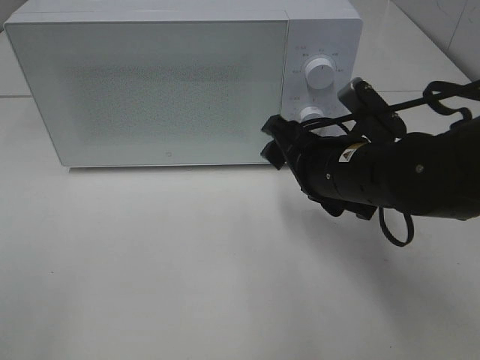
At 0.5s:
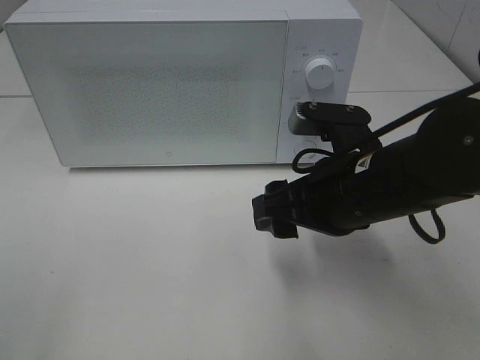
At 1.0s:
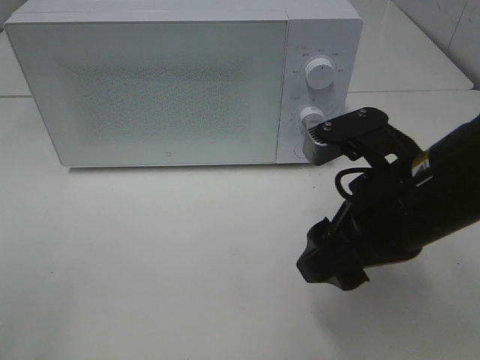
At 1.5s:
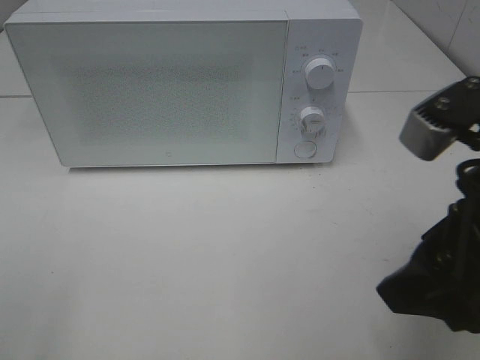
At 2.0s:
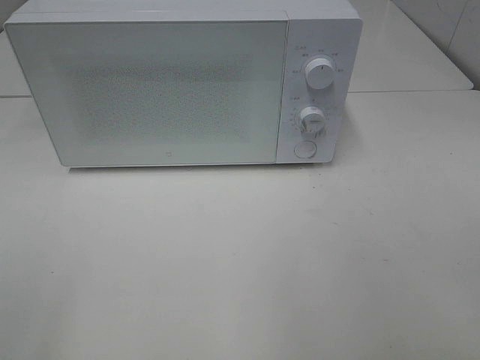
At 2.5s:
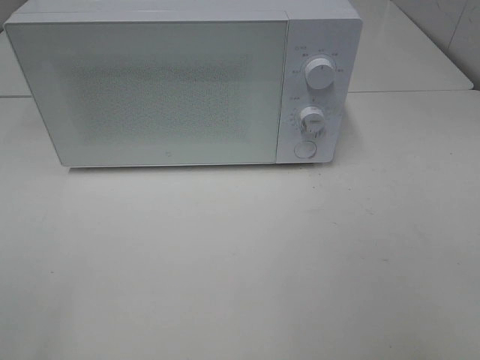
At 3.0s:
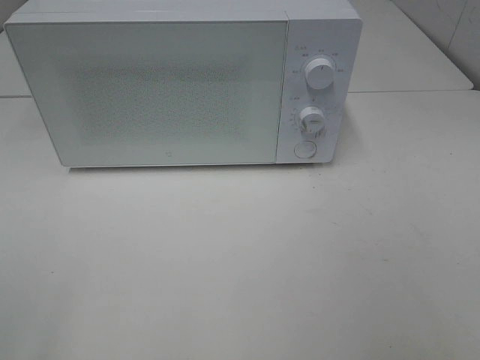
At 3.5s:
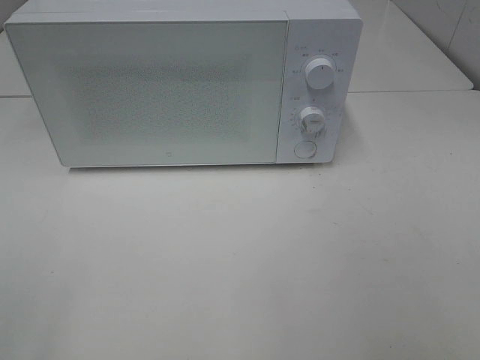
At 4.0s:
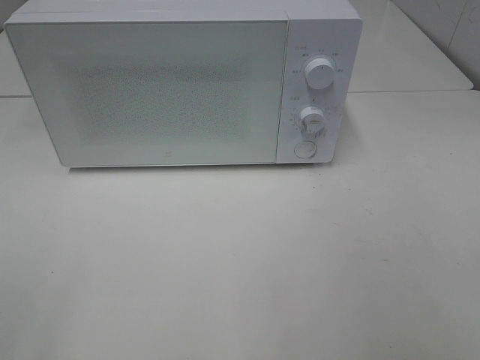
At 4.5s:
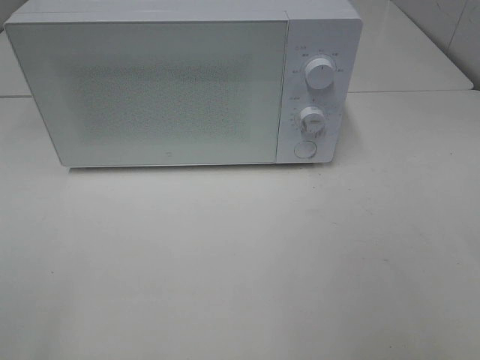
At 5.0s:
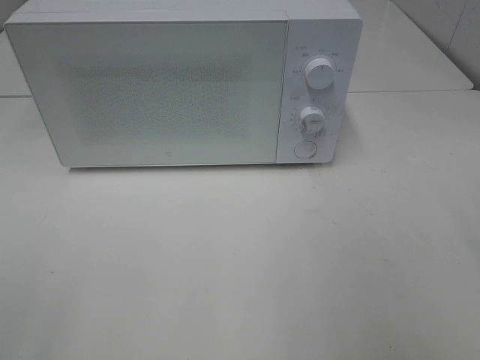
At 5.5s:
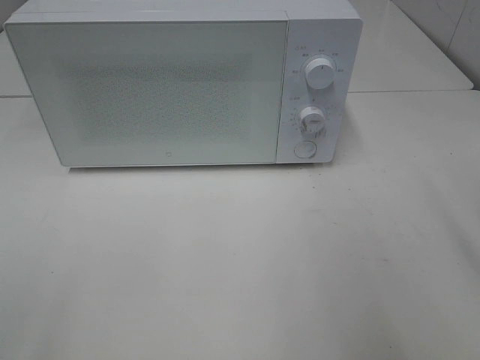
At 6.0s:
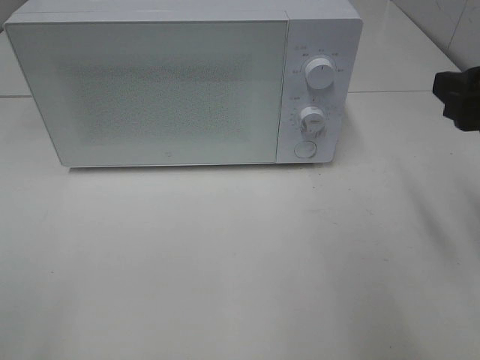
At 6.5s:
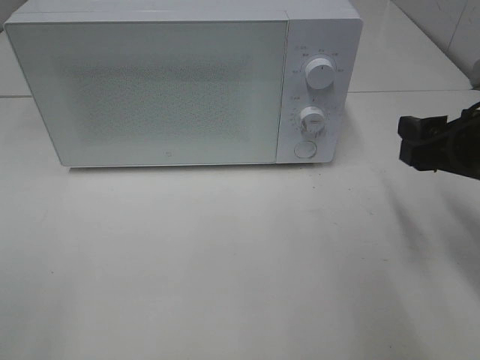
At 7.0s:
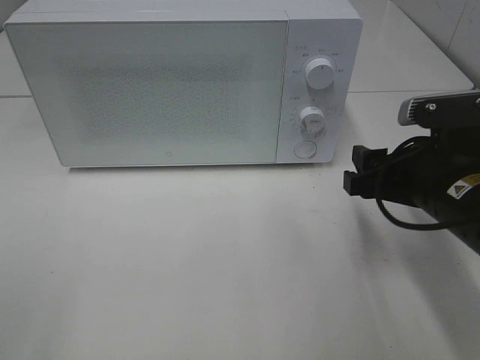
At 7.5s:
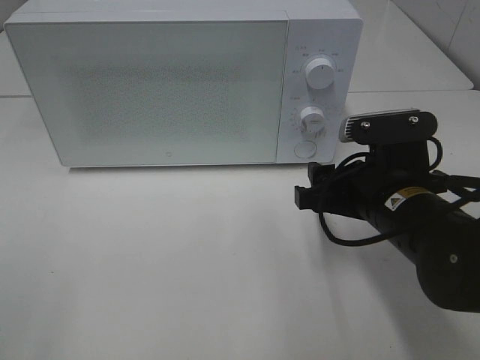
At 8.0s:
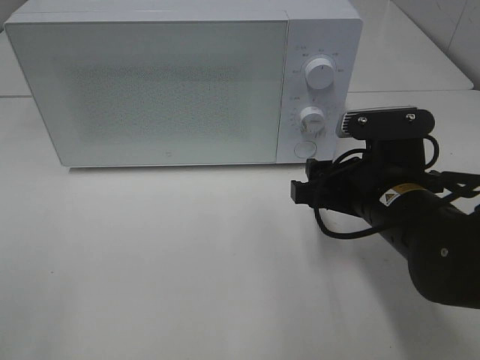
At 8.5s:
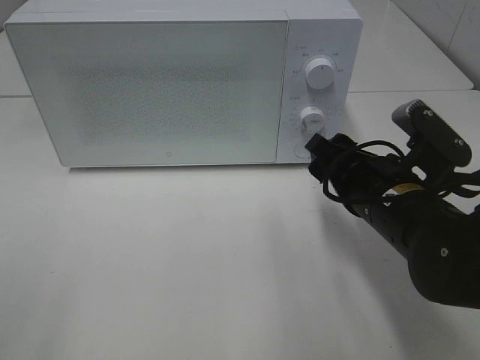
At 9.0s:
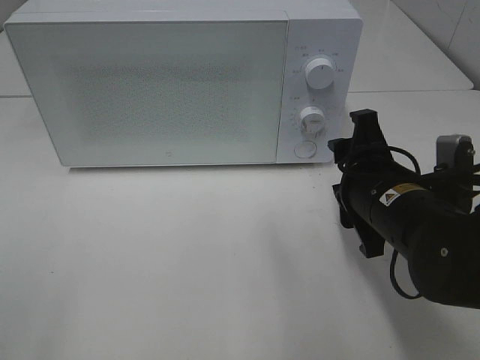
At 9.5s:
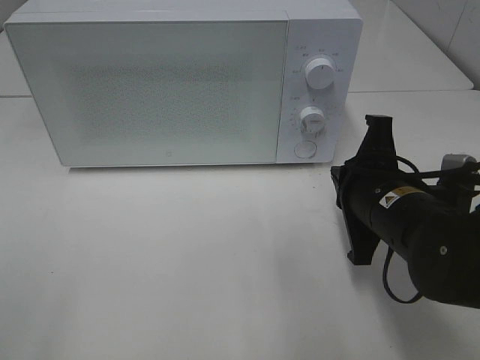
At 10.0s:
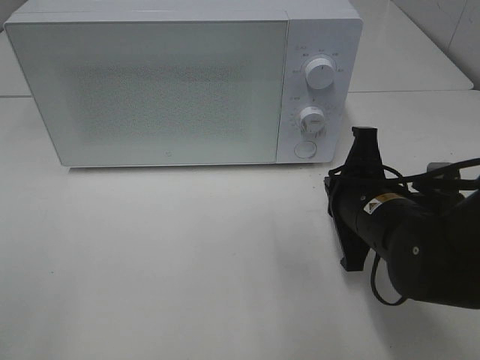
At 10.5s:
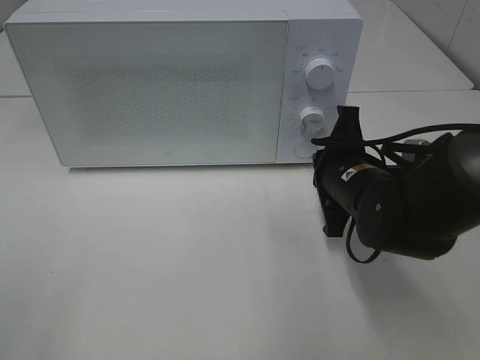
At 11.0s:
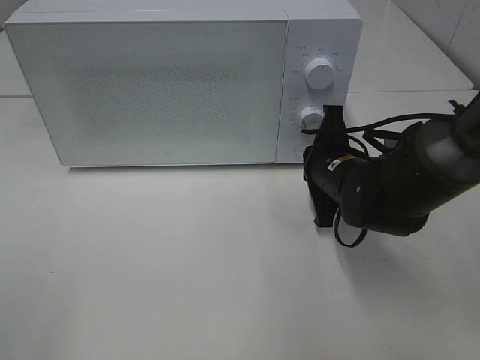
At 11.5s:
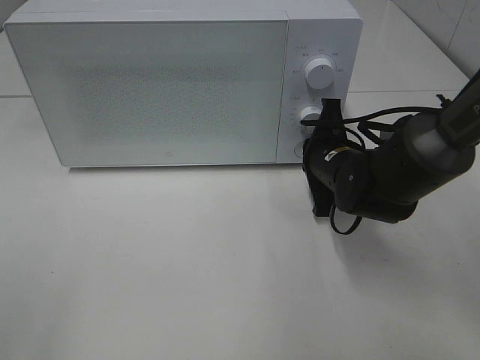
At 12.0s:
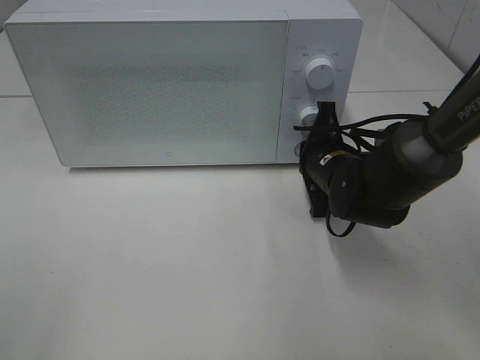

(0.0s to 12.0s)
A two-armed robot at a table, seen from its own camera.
Task of the whole recording: Heat Sandwich.
0.0s - 2.0s: The right gripper goes about 30 cm backward, upward and to the right.
4.0s - 6.0s: The right gripper moves forward, about 20 cm.
6.0s - 8.0s: The right gripper heads downward and to the left, covering some 15 cm.
8.0s - 10.0s: The right gripper closes.
10.0s - 12.0s: The right gripper goes about 10 cm forward.

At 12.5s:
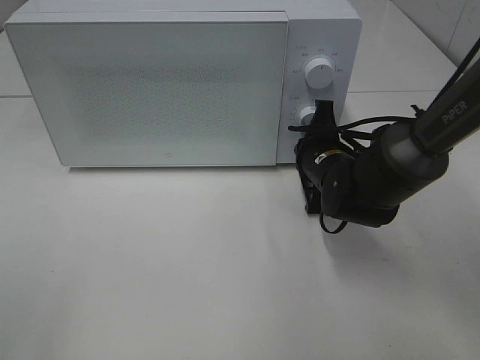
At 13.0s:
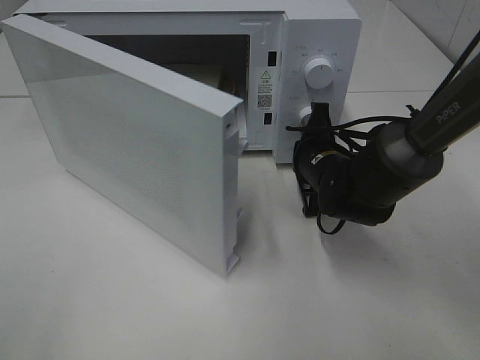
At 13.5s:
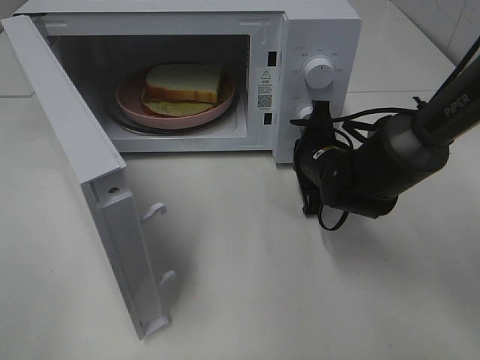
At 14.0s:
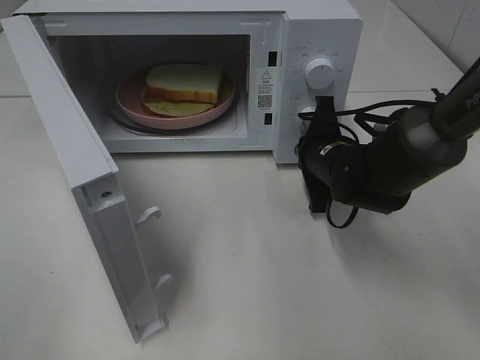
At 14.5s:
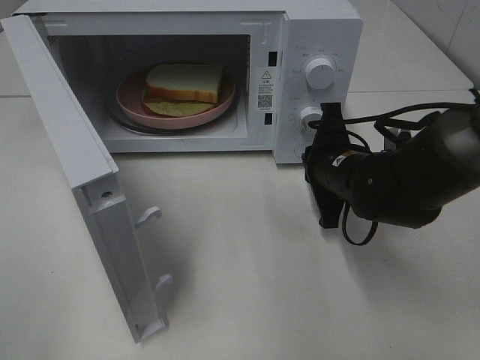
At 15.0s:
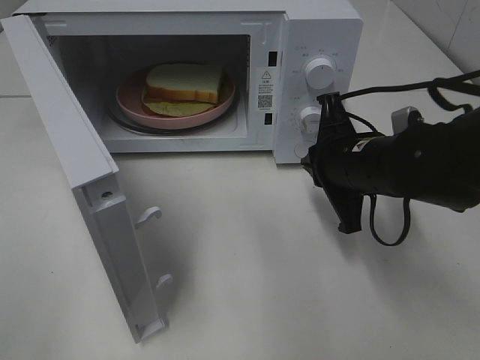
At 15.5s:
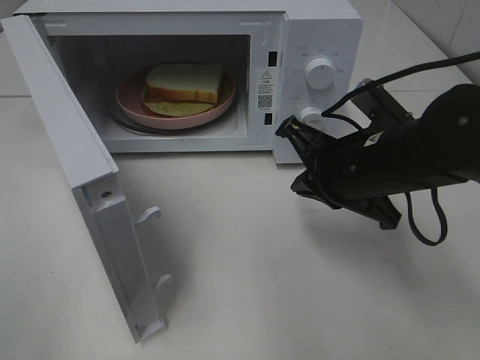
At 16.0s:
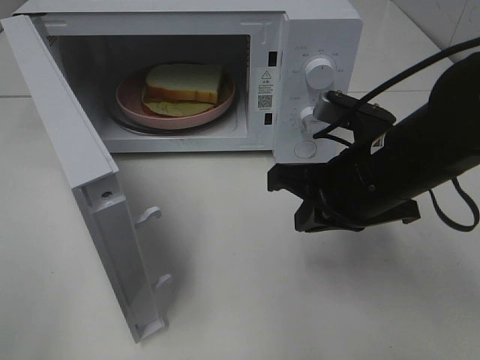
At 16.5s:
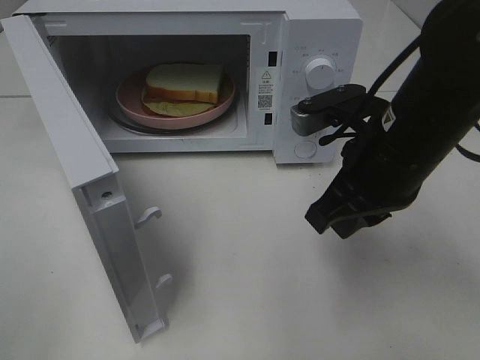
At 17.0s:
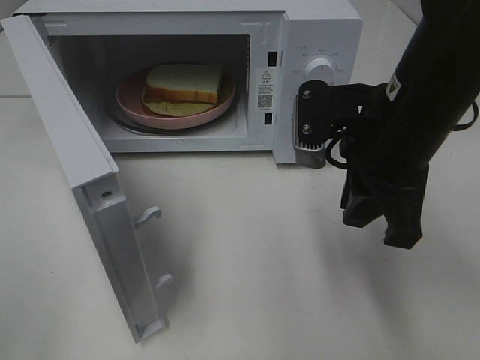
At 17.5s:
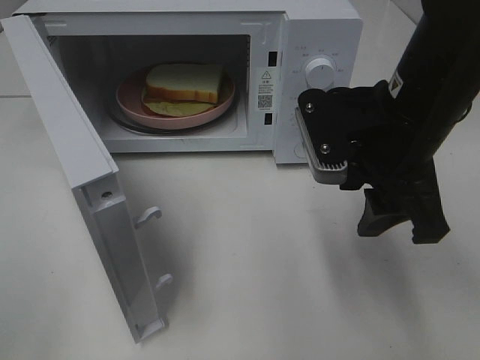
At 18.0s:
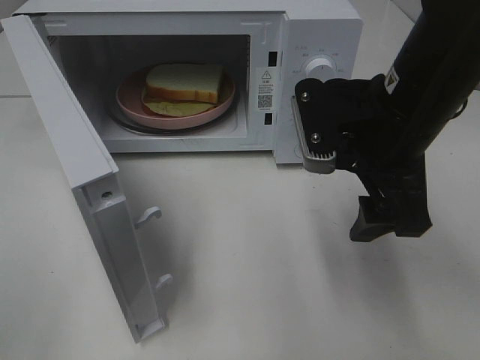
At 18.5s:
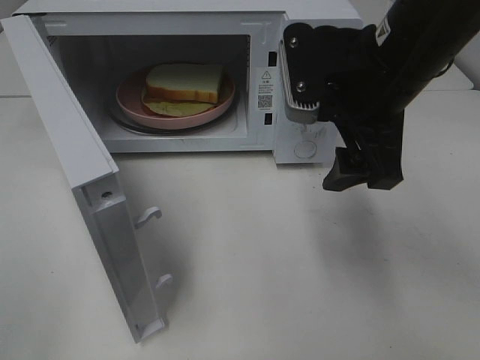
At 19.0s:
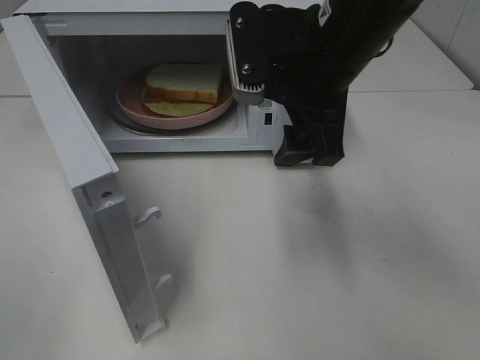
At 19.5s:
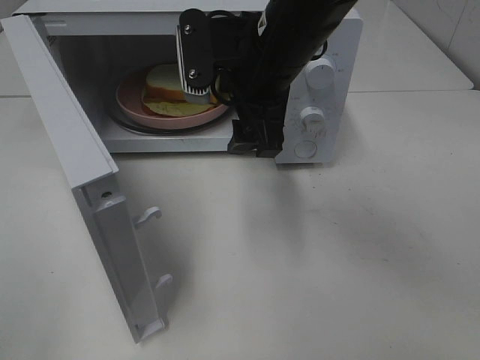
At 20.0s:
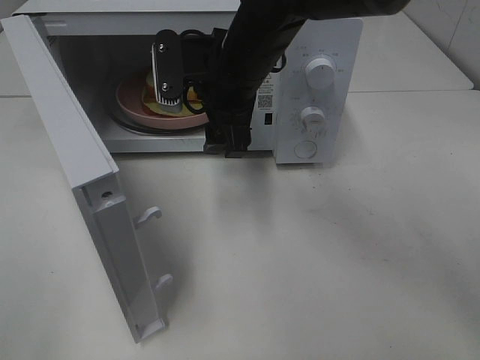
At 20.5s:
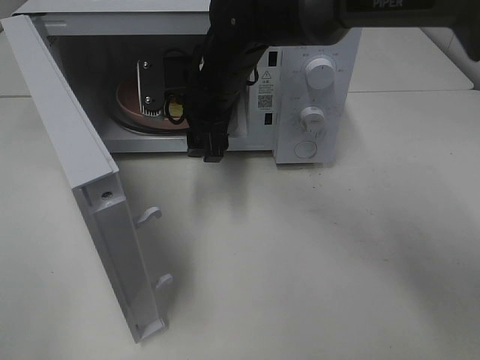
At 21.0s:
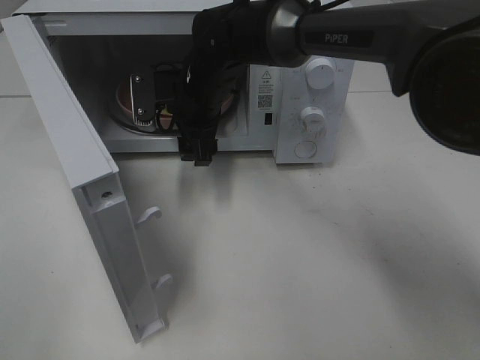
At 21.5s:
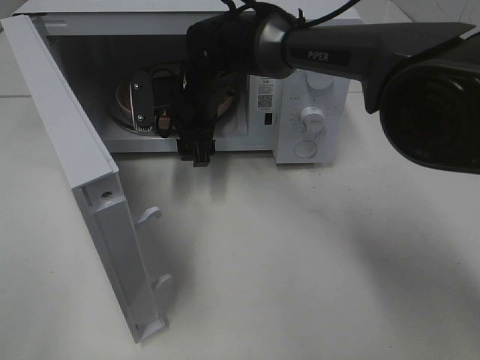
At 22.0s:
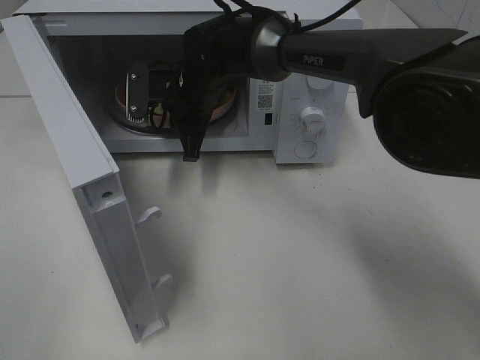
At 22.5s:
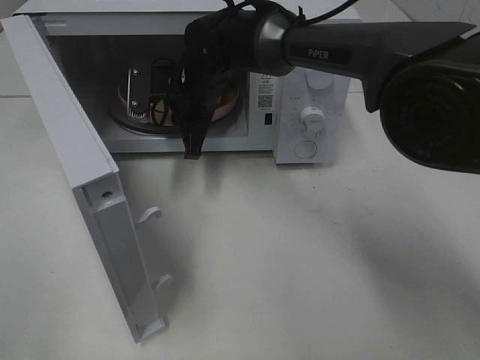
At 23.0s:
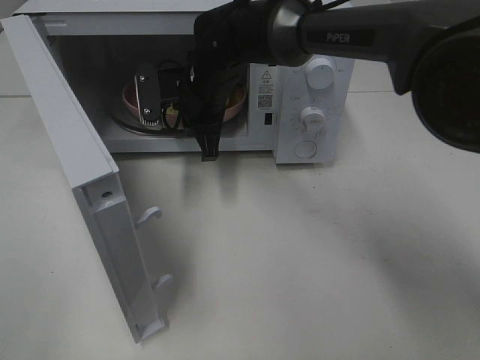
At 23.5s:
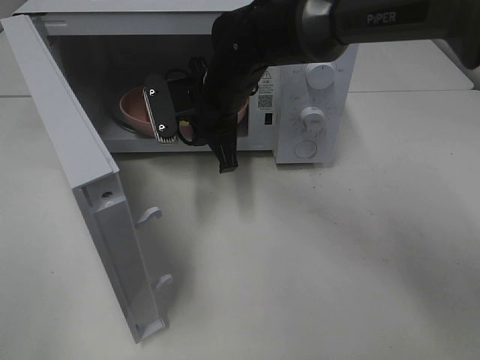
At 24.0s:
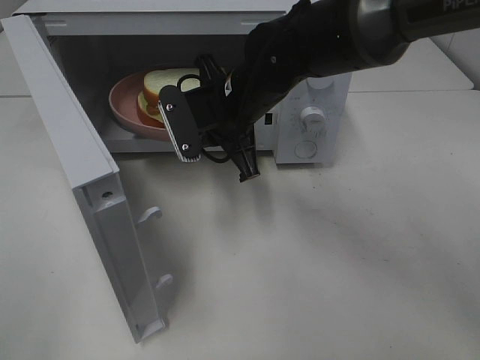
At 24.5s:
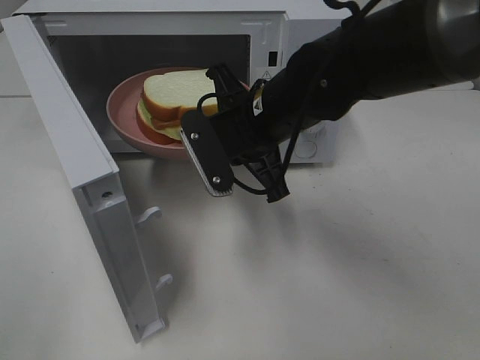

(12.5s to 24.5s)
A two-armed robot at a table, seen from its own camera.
Task of the whole recording: Heat Sandwich.
Step, 14.5s - 22.5s: Right hand: grab the plate with the sandwich.
14.5s - 16.5s: The right gripper is displaced upward and backward by approximately 15 cm.
16.5s - 18.5s: The right gripper moves upward, roughly 5 cm, and opens.
18.5s - 20.5s: The right gripper travels to the left, forward and downward by roughly 20 cm.
20.5s - 22.5s: The right gripper ends up approximately 5 cm from where it was, and closes.
22.5s - 24.5s: The right gripper shifts roughly 15 cm backward and to the right.

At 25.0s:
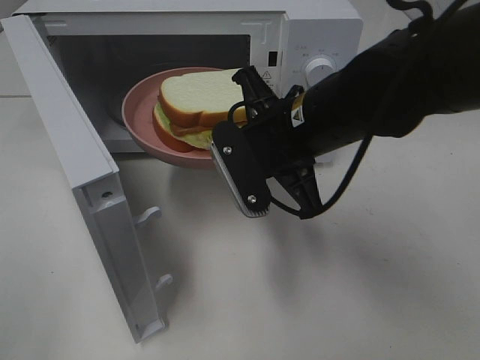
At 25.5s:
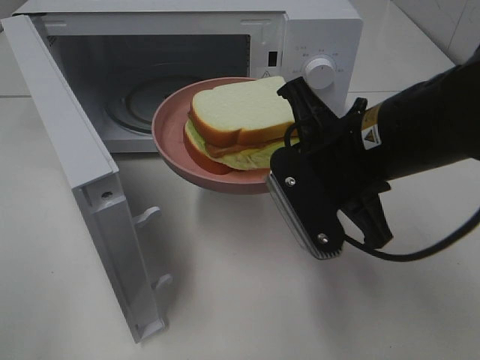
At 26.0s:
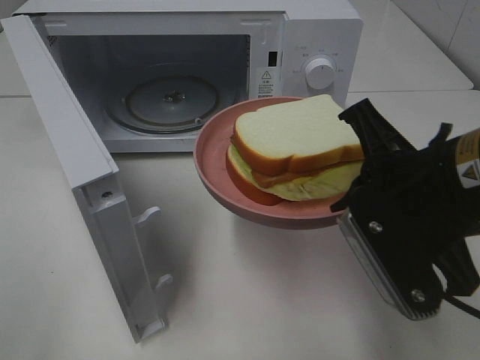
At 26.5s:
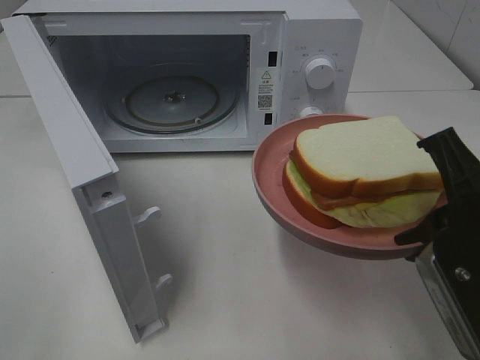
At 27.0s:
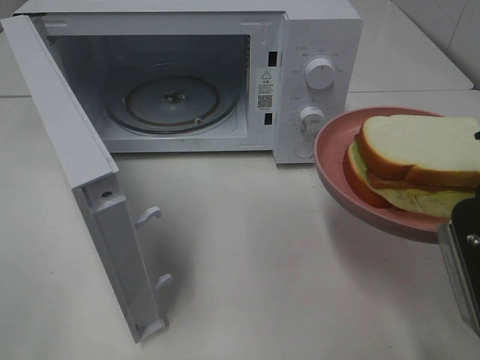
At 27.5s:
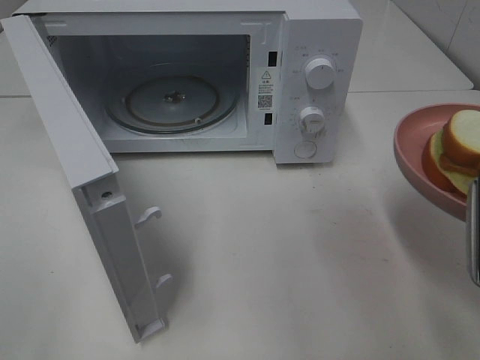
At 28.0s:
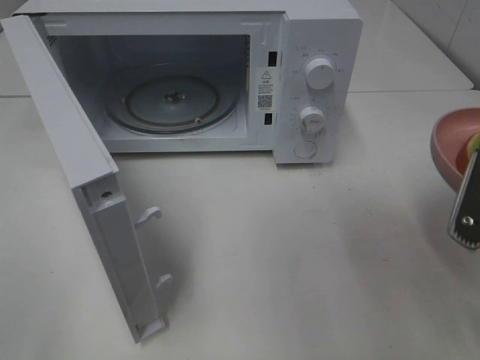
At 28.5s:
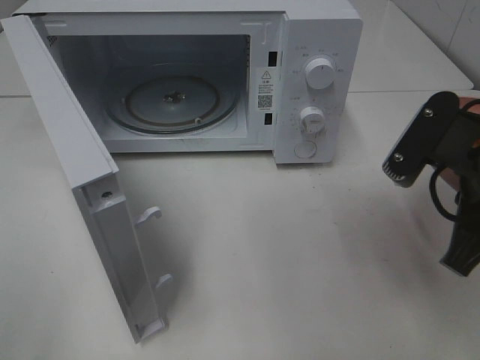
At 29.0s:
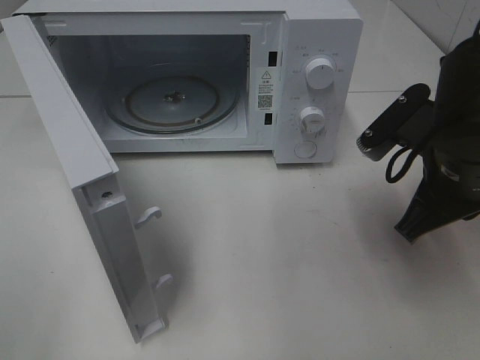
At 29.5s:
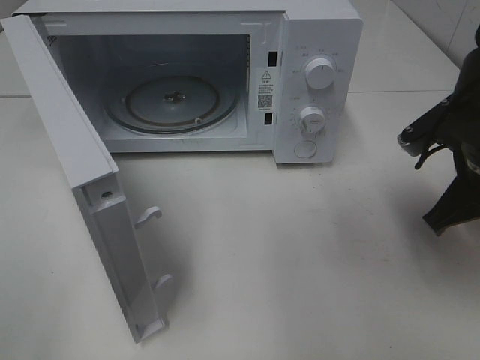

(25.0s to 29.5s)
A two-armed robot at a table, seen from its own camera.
Task of the whole recording: Heat Sandwich.
25.0s - 27.0s: The right gripper travels to the right and backward by roughly 20 cm.
27.0s - 29.5s: The right gripper goes approximately 10 cm forward.
